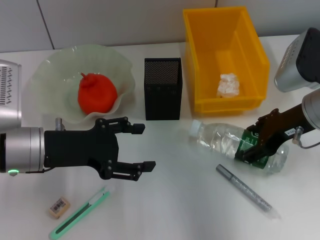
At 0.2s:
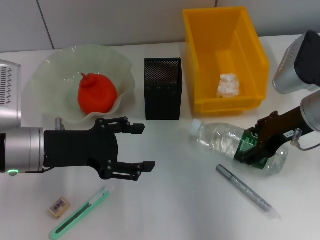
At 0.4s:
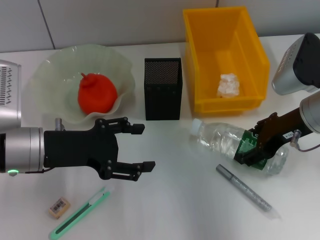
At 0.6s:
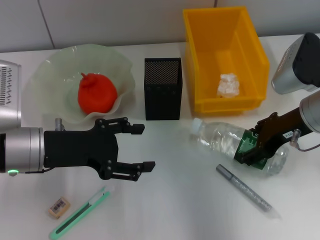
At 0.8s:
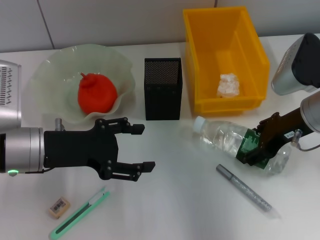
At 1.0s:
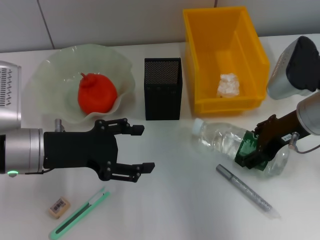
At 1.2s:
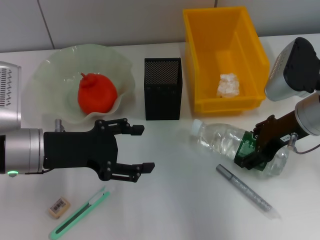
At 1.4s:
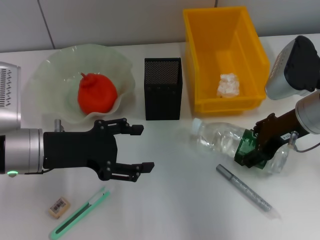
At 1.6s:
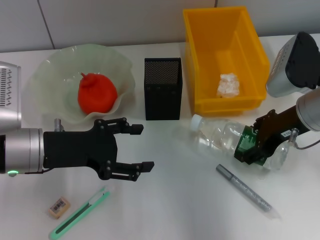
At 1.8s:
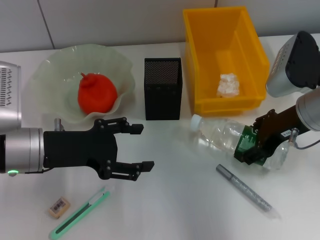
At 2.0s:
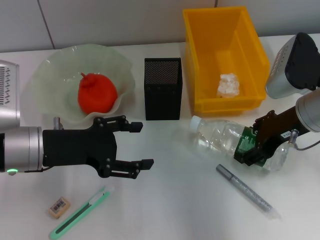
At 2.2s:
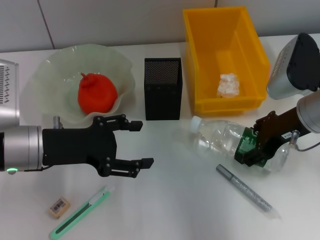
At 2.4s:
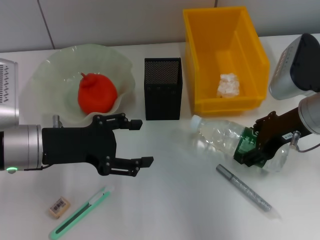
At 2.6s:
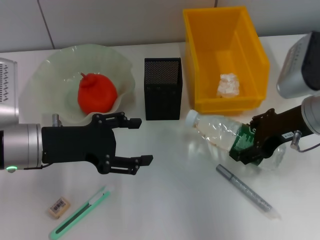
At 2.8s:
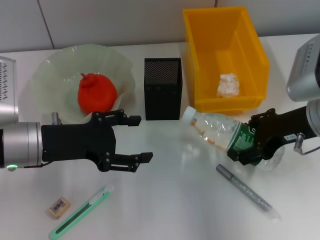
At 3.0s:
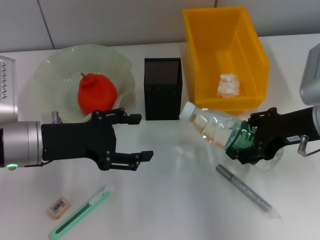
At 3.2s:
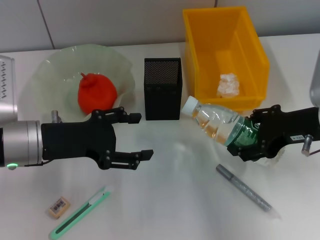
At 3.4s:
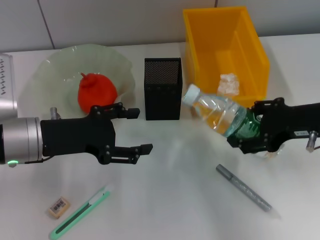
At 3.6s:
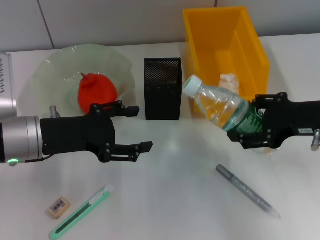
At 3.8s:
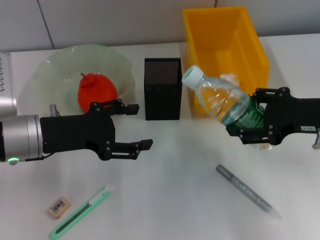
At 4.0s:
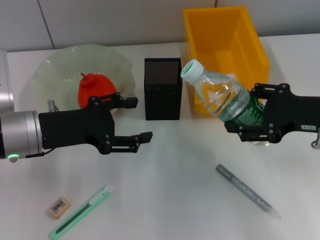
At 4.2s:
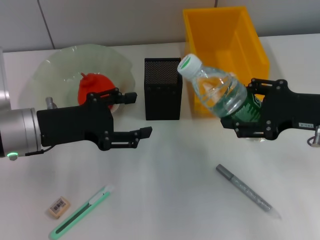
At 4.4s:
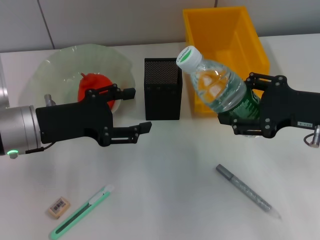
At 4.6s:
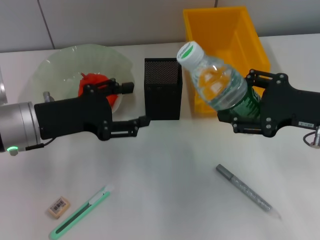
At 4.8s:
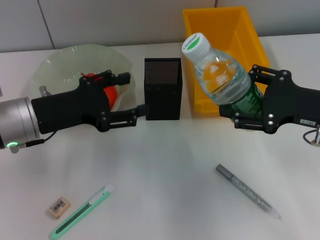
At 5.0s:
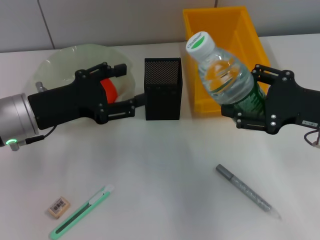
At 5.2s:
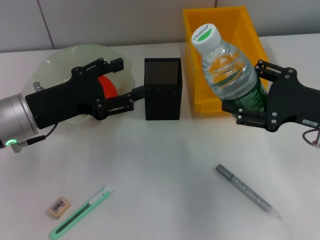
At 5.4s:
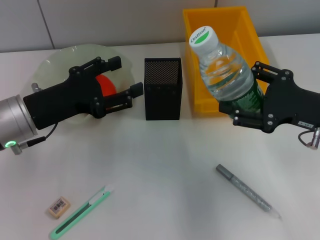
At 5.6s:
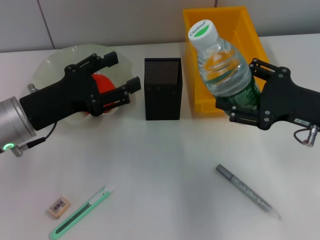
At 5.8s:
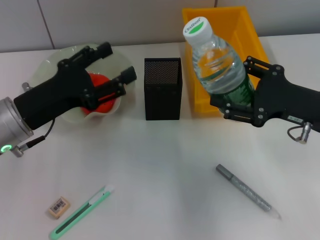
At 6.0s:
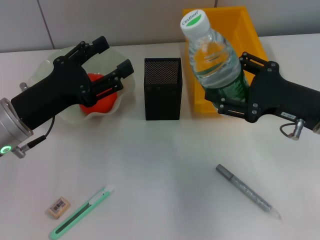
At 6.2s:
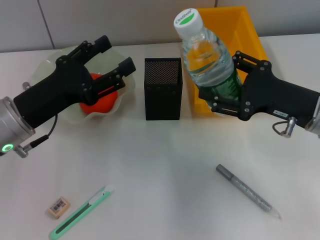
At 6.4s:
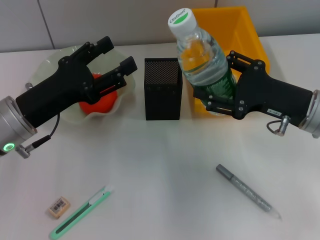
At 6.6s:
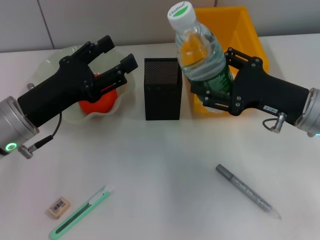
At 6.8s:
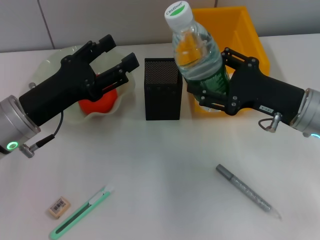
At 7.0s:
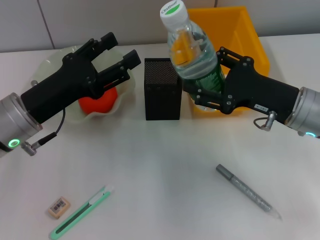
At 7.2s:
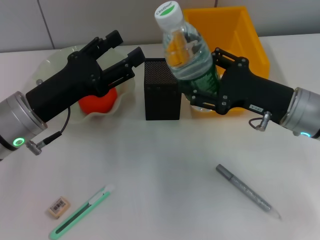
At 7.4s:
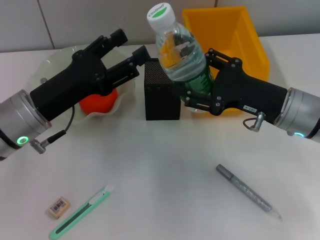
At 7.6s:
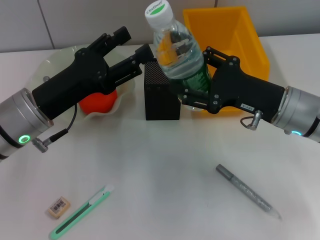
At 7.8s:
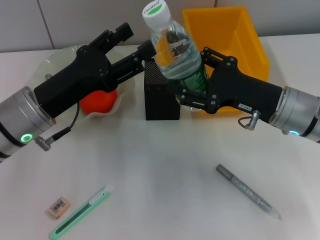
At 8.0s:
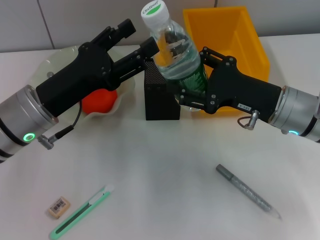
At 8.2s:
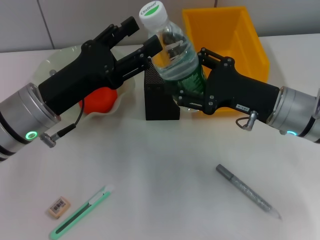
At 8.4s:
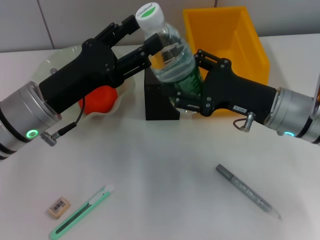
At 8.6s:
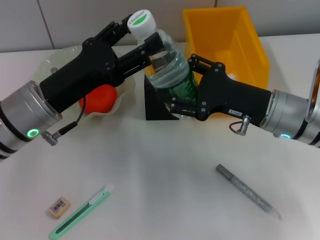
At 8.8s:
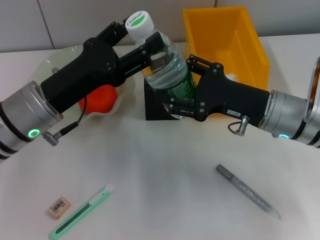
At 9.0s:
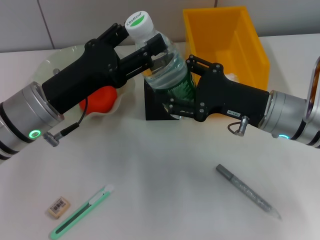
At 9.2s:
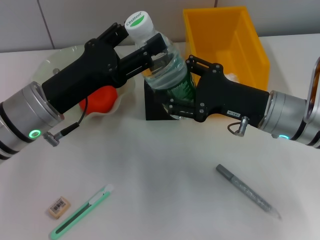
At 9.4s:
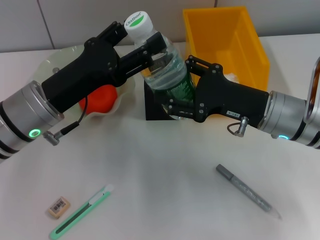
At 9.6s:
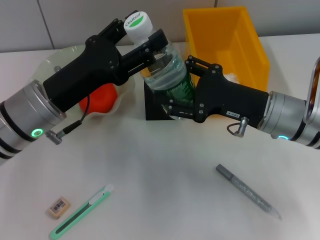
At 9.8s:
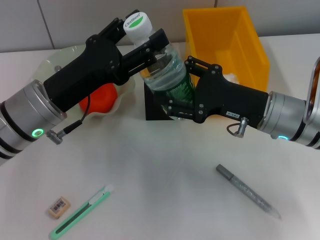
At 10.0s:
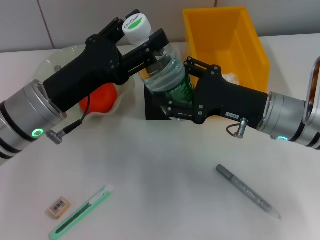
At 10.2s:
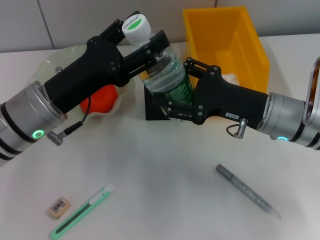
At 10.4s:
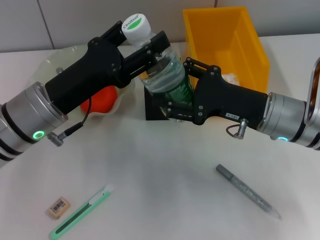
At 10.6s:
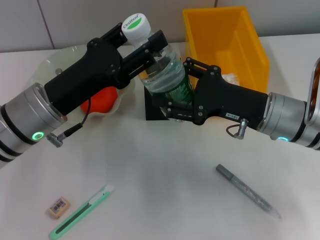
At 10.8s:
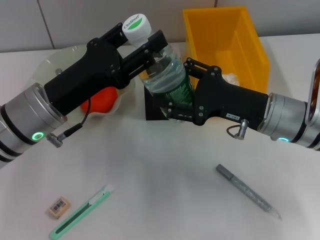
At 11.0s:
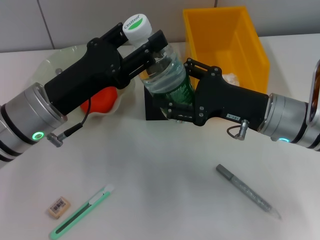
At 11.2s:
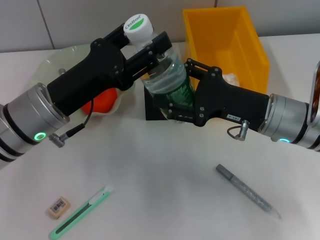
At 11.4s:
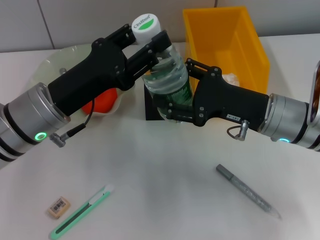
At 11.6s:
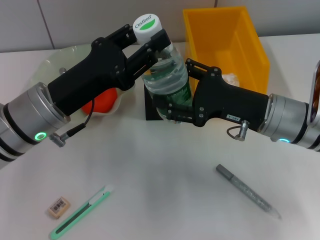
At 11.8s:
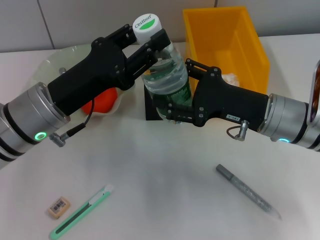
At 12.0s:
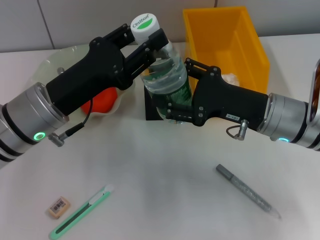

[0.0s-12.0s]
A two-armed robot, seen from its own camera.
0.0s to 1.6s: Both grippers stay about where they are.
1.6s to 3.0s: There are only small adjustments of the grippers.
6.0s to 7.6s: The right gripper ends up some 5 cm from where it was.
7.6s to 9.0s: The grippers make only small movements.
9.0s to 10.4s: Neither gripper changes place.
10.4s to 12.0s: The left gripper closes up.

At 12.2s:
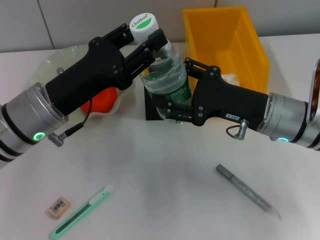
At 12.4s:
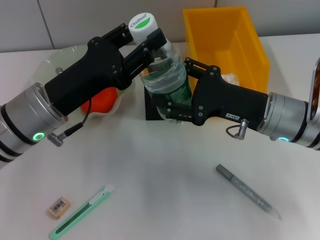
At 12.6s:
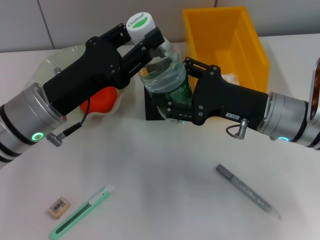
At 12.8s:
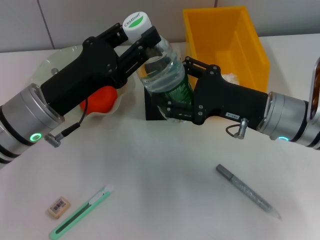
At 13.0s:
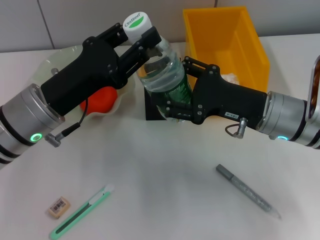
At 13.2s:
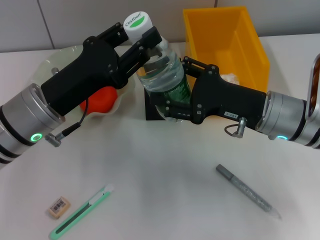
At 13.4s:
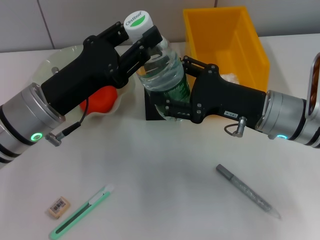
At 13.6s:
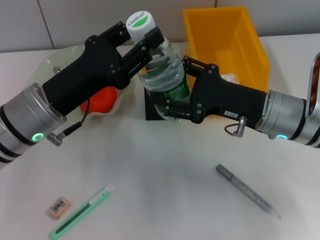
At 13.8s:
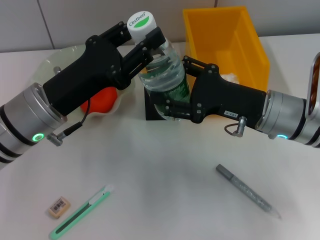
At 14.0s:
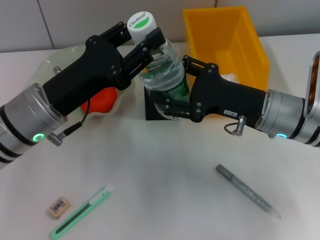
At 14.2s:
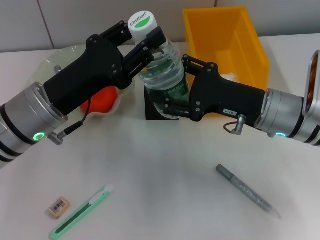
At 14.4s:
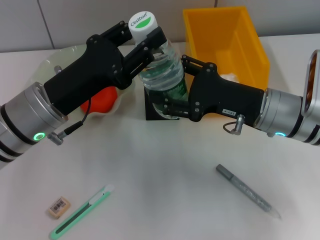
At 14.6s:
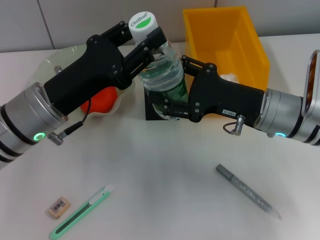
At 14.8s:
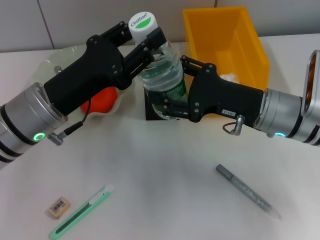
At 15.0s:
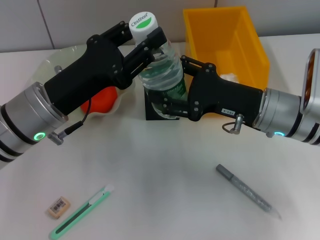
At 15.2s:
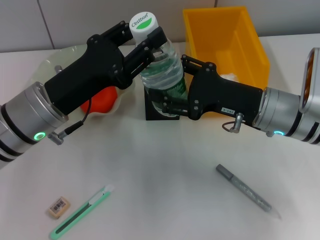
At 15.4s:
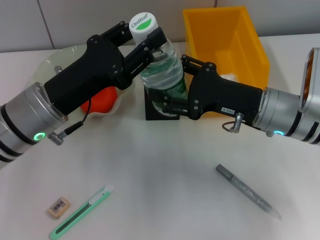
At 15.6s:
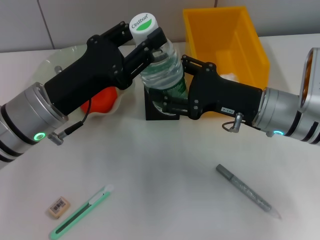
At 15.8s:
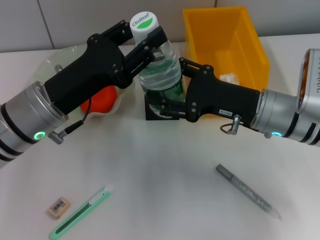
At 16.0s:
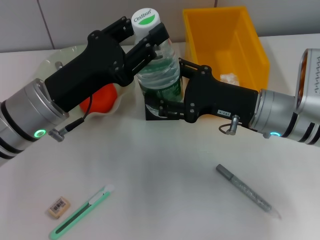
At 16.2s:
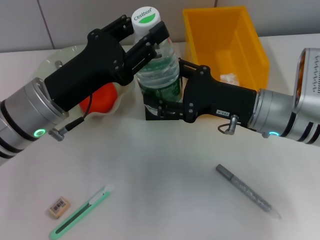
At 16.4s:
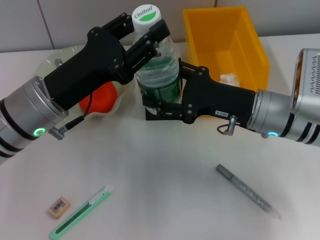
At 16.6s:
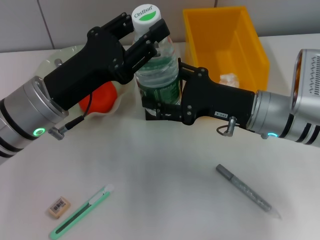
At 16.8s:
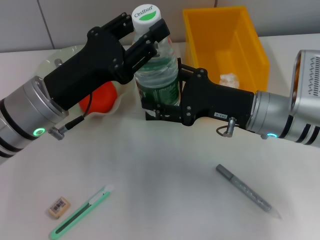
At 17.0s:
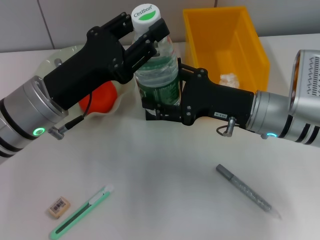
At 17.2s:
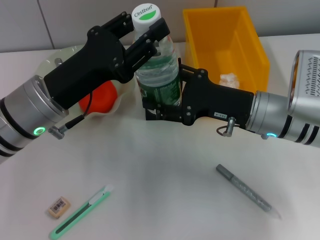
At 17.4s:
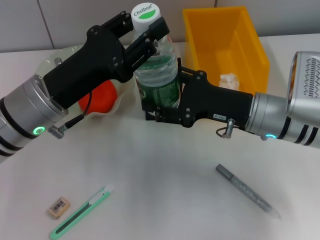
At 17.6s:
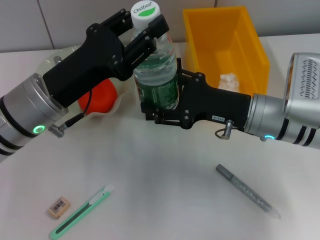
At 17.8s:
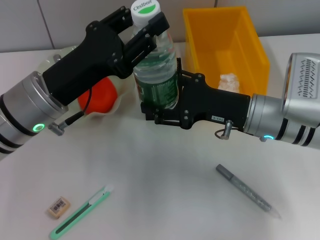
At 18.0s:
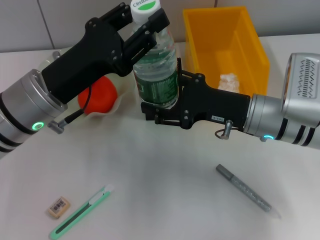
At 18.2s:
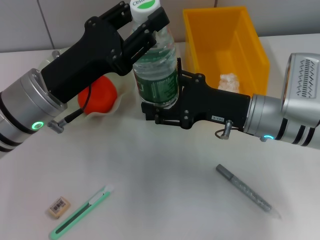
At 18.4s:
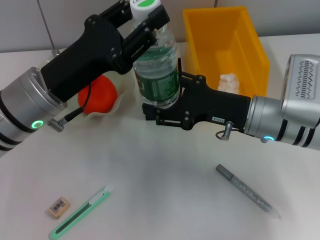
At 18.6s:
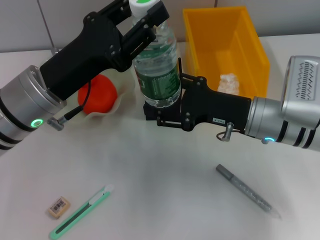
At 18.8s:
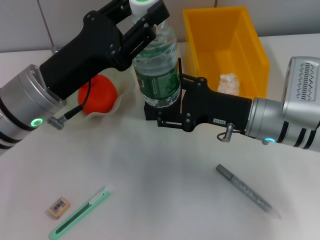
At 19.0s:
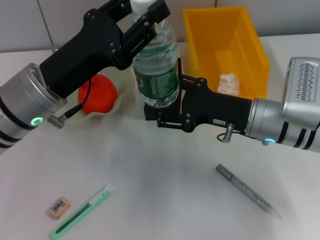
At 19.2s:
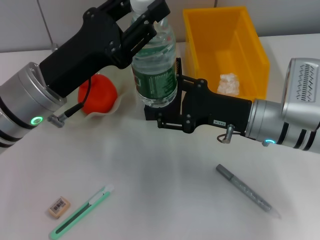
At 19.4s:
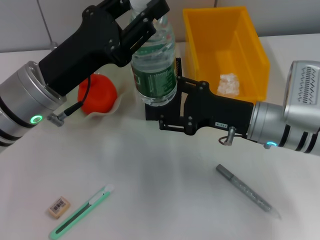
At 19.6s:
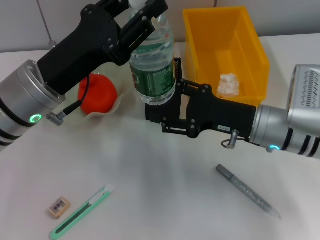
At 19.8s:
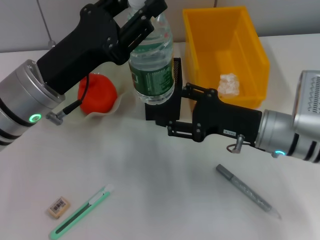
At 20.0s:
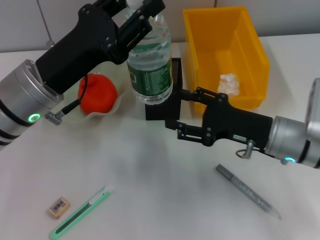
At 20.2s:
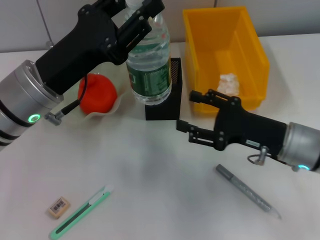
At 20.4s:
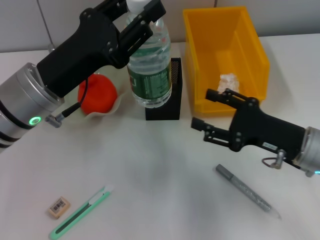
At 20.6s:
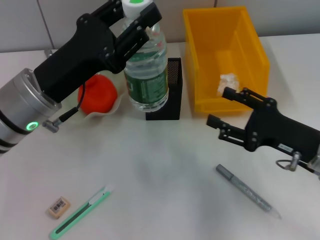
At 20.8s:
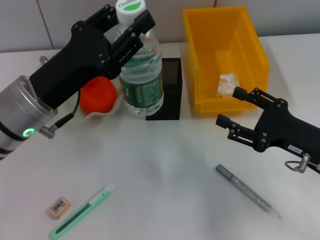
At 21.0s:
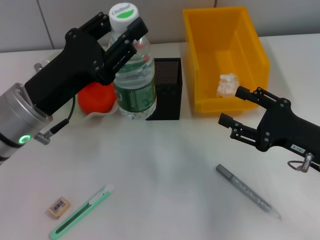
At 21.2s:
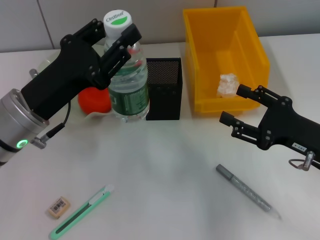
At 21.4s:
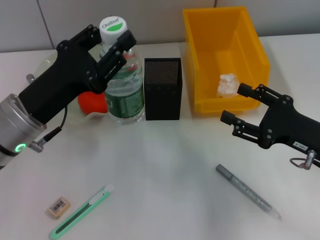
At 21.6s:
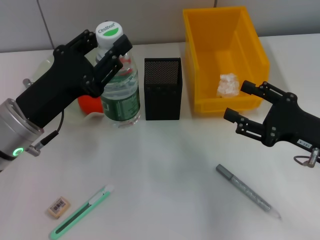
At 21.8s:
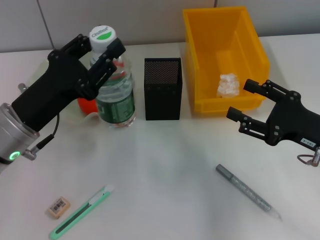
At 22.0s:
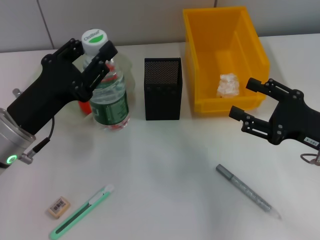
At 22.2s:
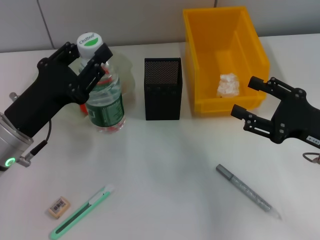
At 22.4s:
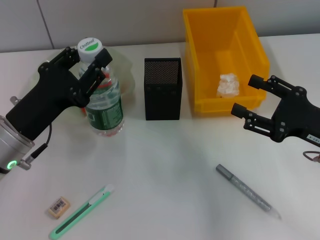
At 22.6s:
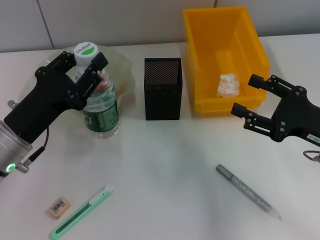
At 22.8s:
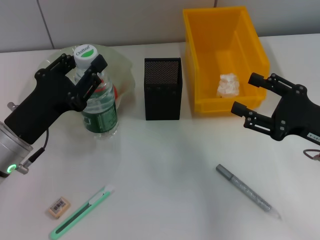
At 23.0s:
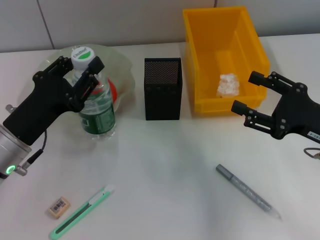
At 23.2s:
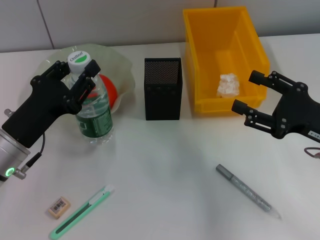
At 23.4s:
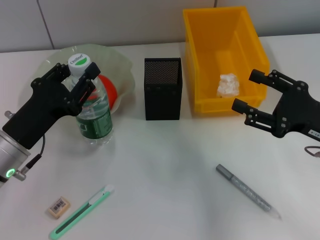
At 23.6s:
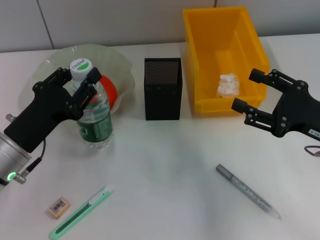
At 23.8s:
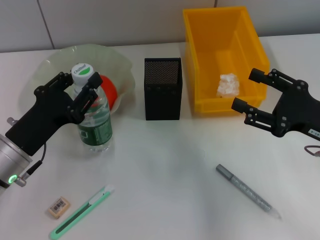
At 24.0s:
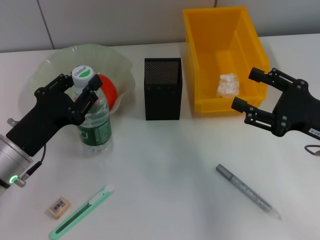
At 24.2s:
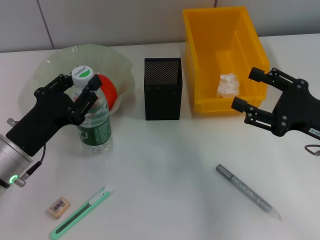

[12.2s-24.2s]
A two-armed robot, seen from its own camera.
Step, 12.2s to 19.6s: Pass the water bottle from the right hand to the left hand.
12.2s to 15.2s: Both grippers stay put.
15.2s to 16.6s: The two grippers keep their place.
16.6s to 18.2s: Neither gripper changes place.
18.2s to 19.8s: There are only small adjustments of the grippers.
19.8s to 21.2s: The right gripper shifts roughly 10 cm to the right and backward.
21.2s to 22.6s: The left gripper shifts by about 5 cm.
22.6s to 24.2s: The grippers make only small movements.
